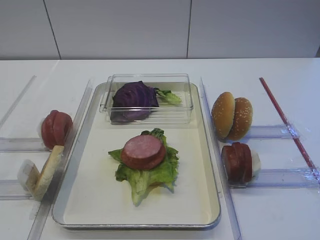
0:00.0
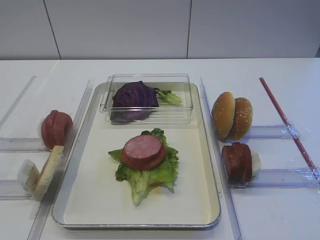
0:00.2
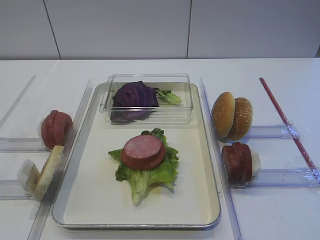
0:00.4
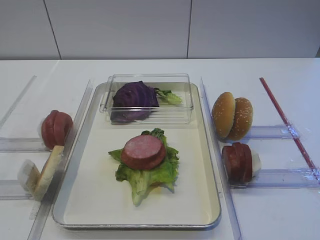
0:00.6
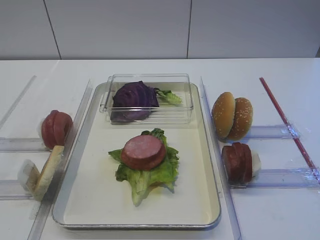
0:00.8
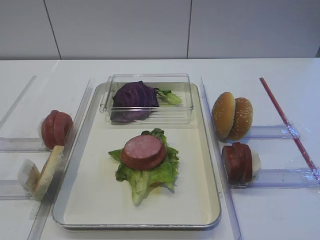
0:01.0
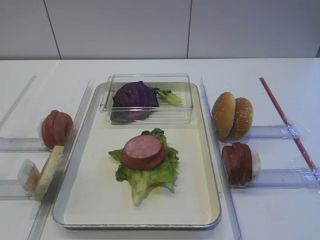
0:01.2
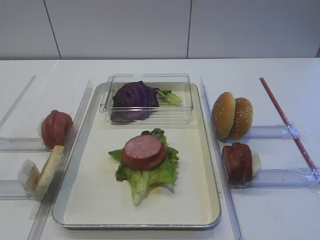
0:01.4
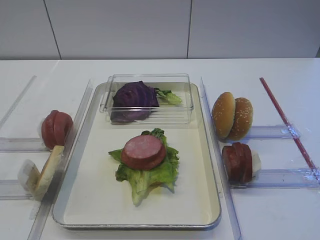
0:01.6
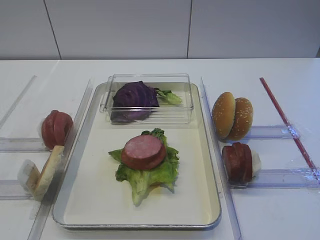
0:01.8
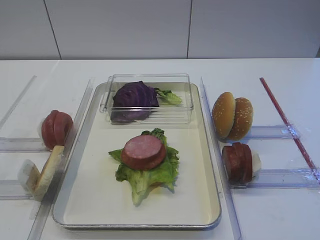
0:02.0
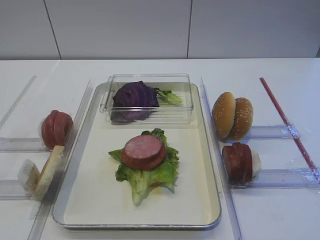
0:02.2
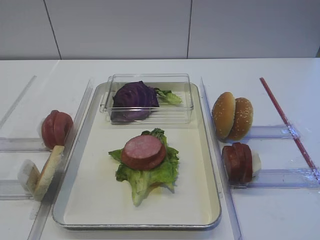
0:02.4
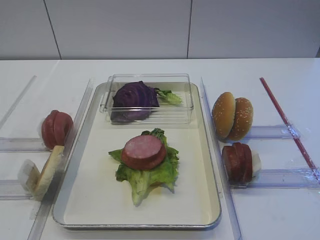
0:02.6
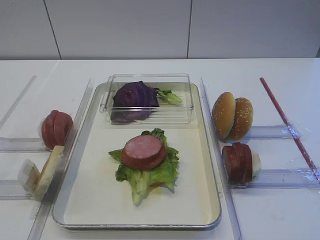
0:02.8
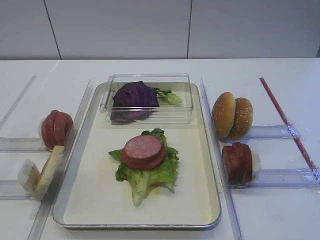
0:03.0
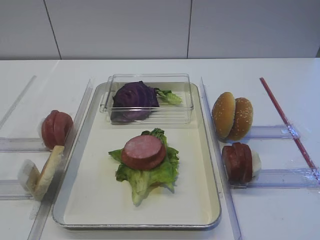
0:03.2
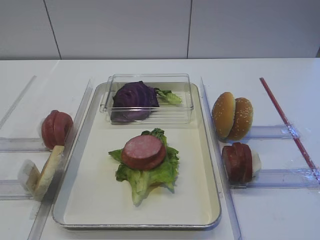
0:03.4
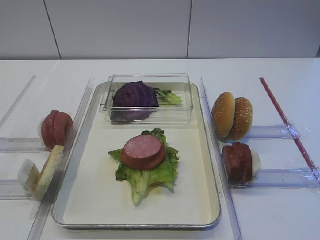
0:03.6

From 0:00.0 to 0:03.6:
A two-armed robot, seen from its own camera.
From 0:00.0 to 0:03.6: Both grippers stay put.

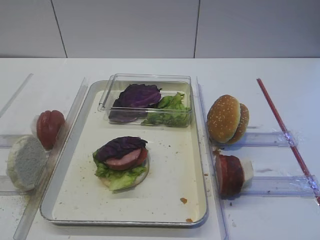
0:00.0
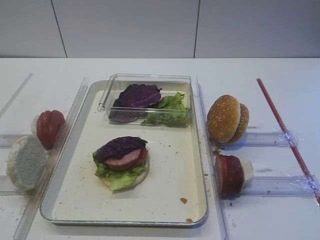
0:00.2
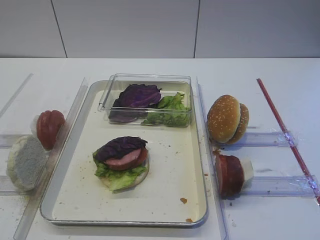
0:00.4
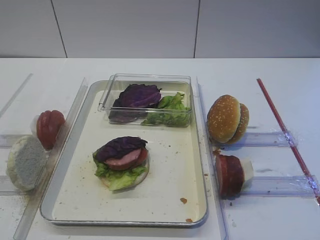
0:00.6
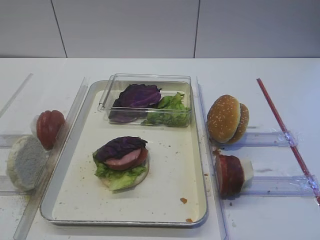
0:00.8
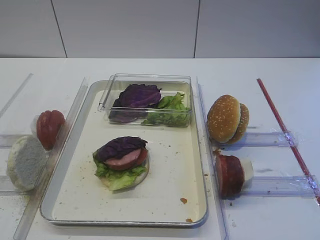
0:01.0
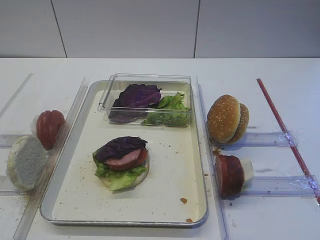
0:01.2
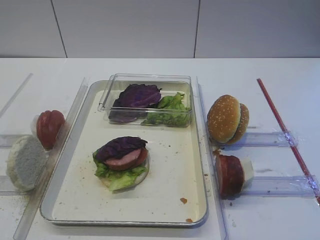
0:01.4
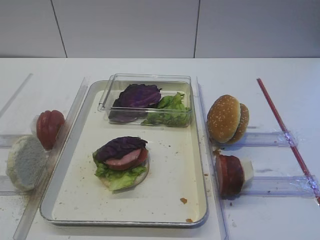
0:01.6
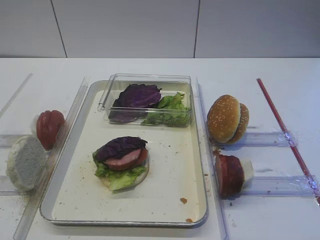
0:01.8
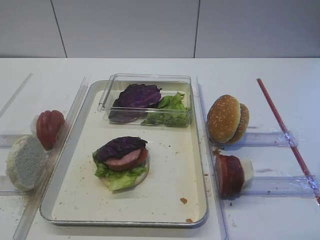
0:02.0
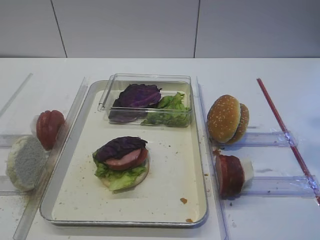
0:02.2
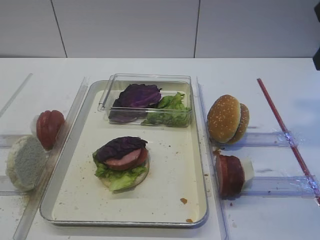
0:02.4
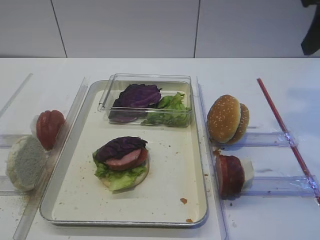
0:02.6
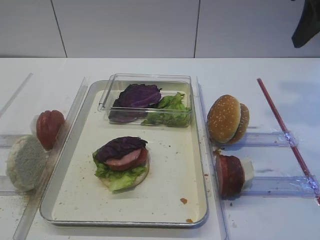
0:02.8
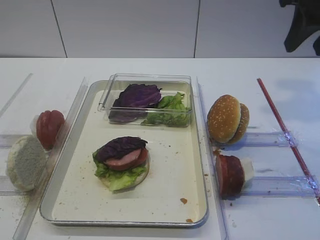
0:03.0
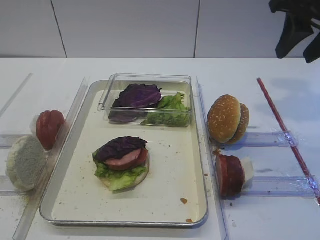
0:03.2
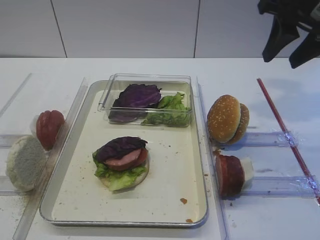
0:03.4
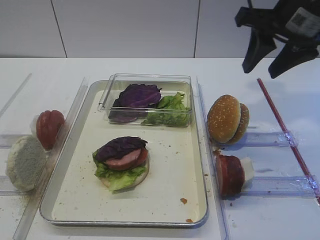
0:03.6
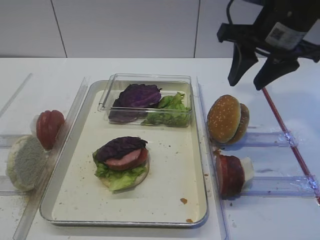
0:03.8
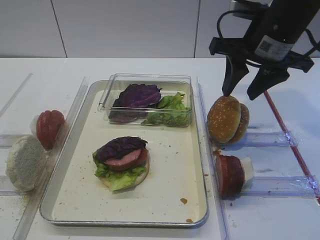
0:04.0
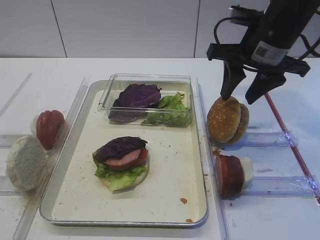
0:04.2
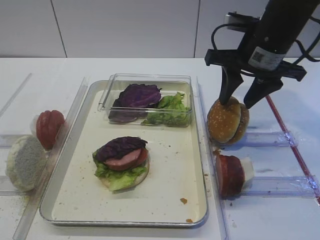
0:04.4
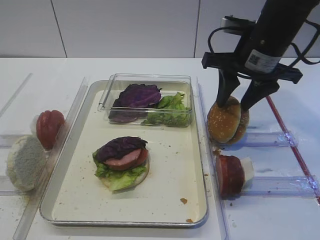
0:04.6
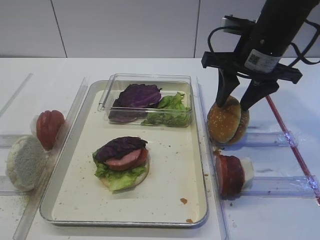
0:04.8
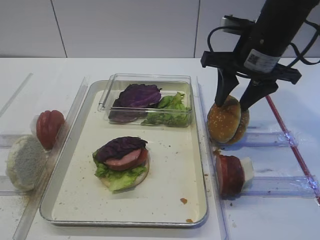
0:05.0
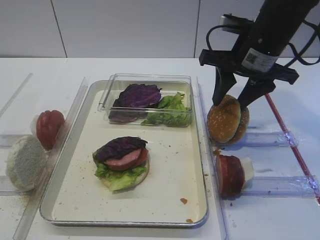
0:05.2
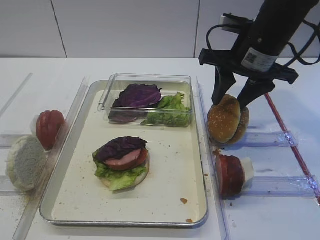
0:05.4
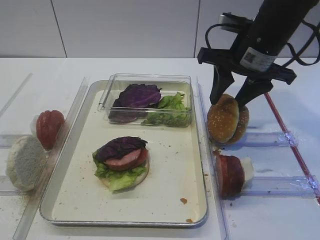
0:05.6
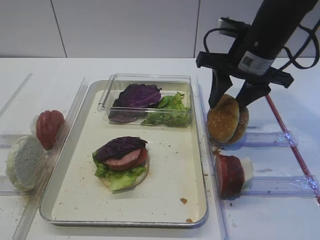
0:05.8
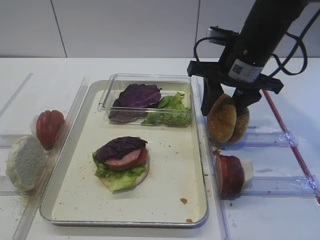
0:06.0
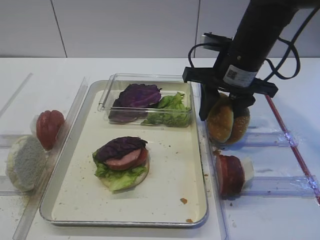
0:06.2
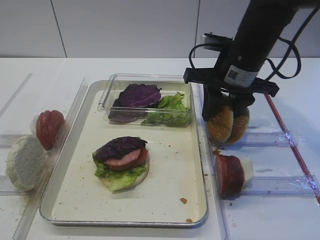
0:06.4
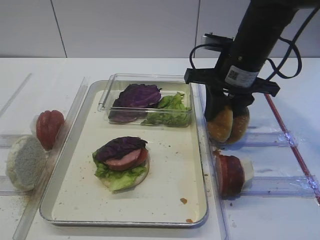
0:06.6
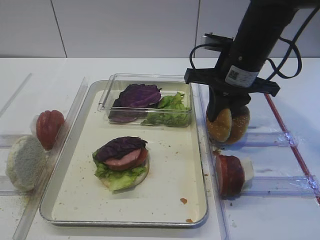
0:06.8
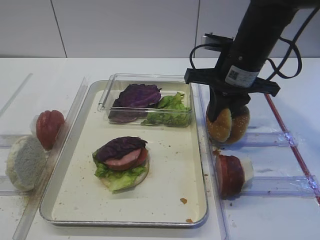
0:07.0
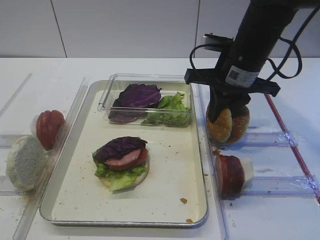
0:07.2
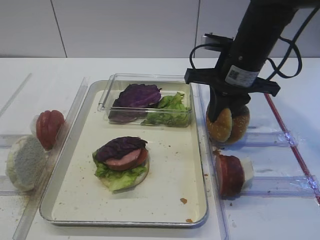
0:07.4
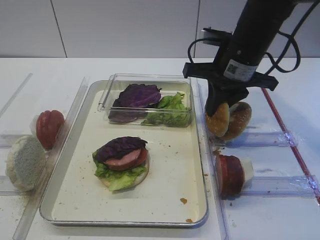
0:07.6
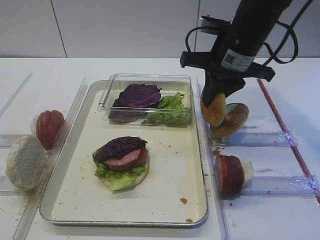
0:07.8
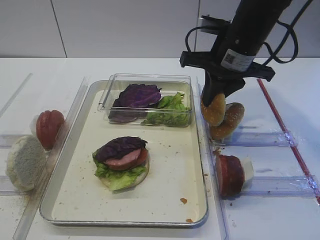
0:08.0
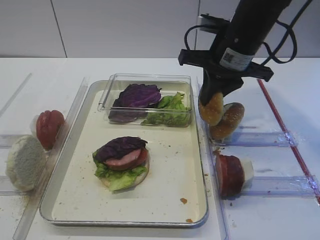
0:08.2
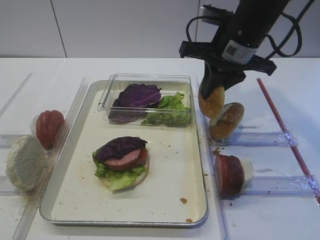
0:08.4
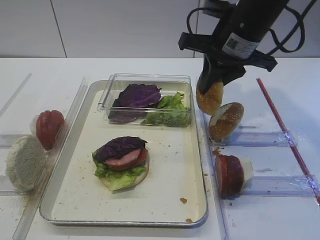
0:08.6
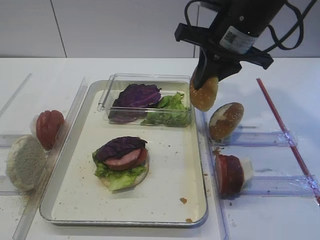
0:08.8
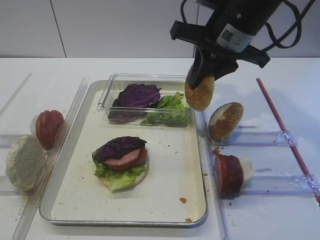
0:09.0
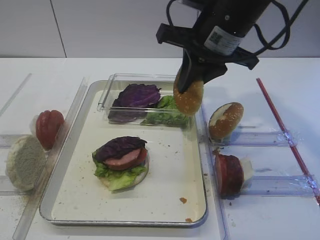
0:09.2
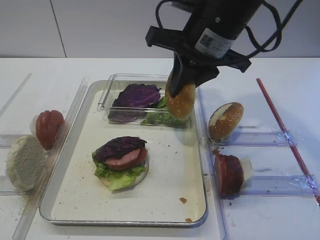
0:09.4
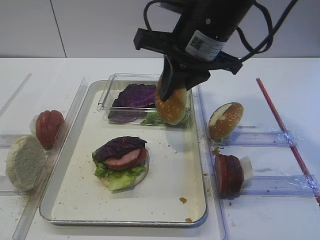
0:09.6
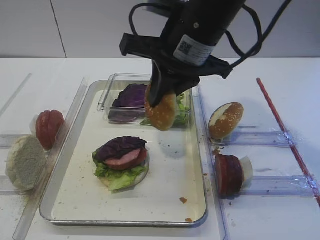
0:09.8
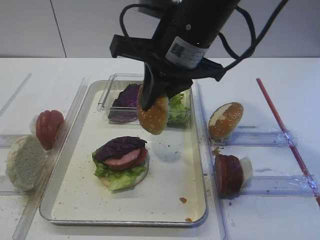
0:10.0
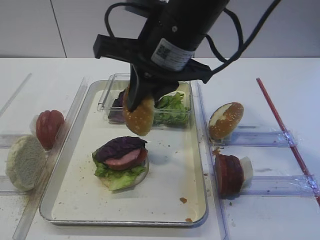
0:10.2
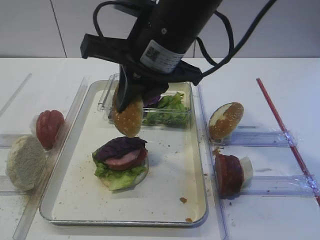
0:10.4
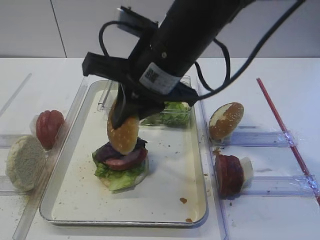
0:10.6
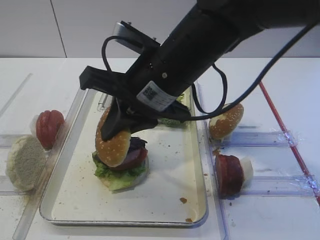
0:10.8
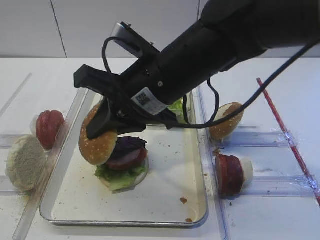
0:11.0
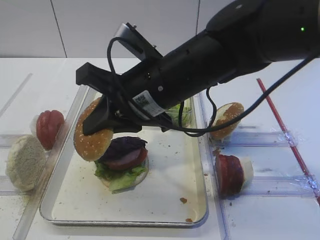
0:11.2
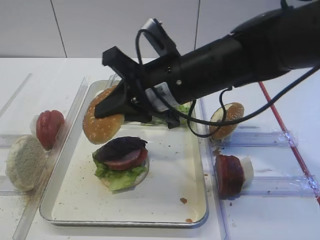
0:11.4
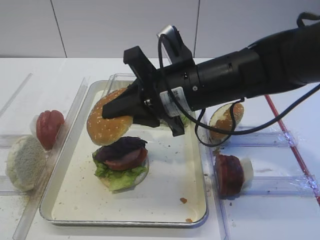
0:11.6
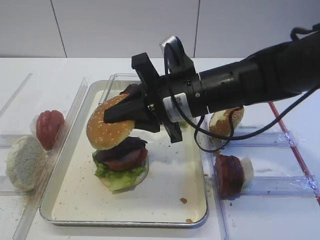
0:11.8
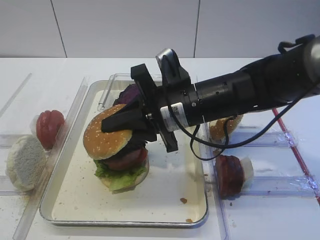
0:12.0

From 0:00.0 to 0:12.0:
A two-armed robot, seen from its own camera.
Step, from 0:00.0 to 0:08.2: Pick up the hamburger lid with the right gripper.
From 0:01.6 to 0:03.0: The right gripper travels forward by roughly 25 cm.
From 0:03.0 to 0:04.4: The right gripper is displaced downward and to the left by roughly 10 cm.
From 0:04.4 to 0:06.0: The grippers move only a little.
From 0:06.0 to 0:07.6: The right gripper closes its fingers.
From 0:07.6 to 0:09.0: The right gripper moves upward, some 5 cm.
From 0:09.0 to 0:10.4: The right gripper heads to the left and backward, covering some 10 cm.
From 0:10.4 to 0:12.0: The right gripper moves downward, some 10 cm.

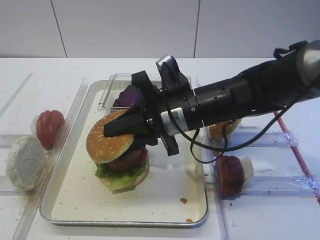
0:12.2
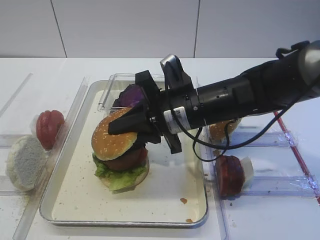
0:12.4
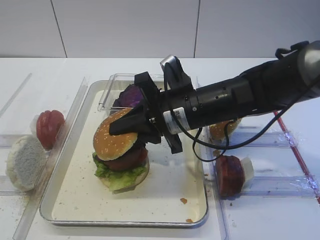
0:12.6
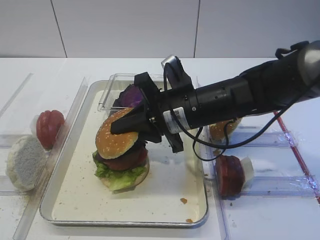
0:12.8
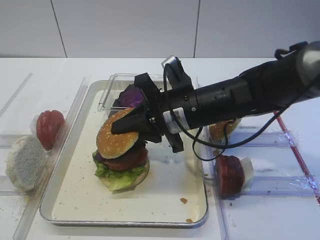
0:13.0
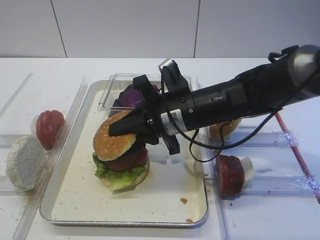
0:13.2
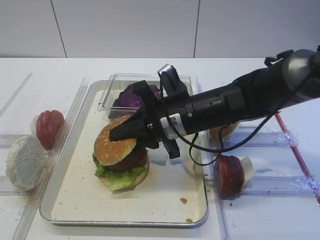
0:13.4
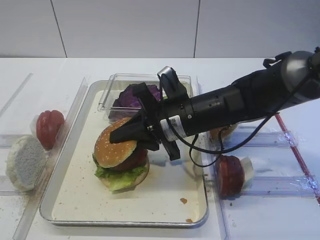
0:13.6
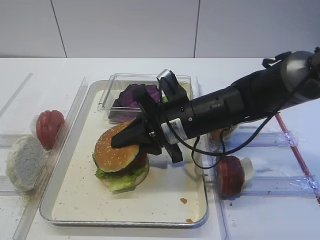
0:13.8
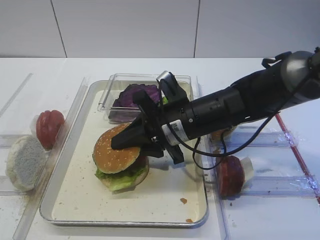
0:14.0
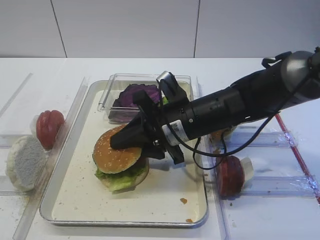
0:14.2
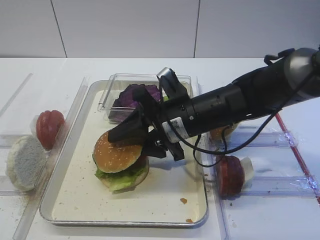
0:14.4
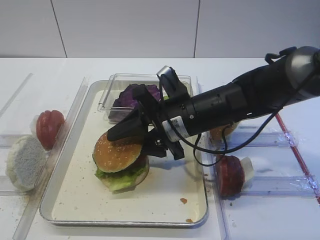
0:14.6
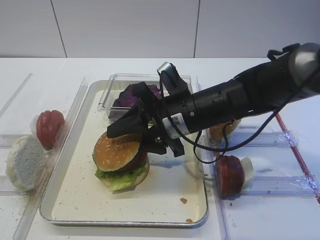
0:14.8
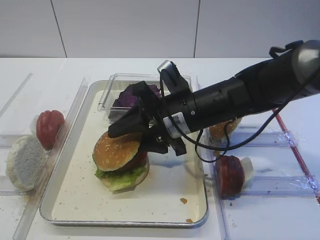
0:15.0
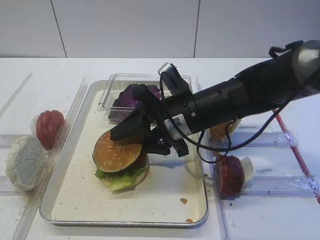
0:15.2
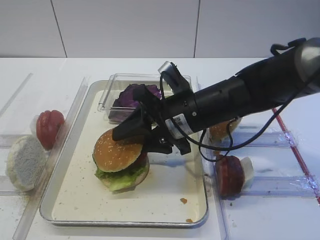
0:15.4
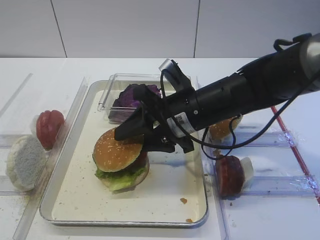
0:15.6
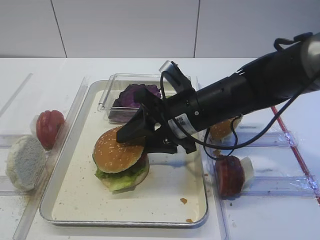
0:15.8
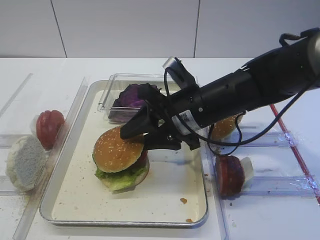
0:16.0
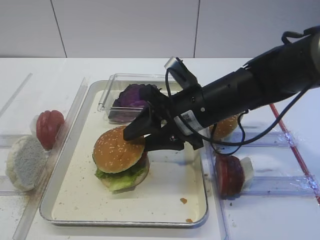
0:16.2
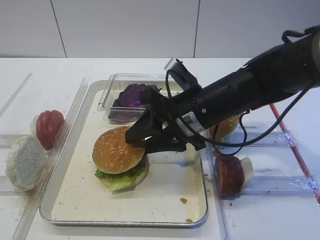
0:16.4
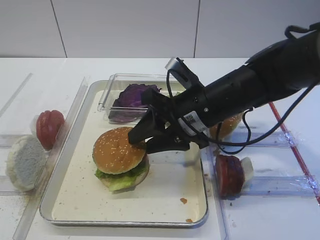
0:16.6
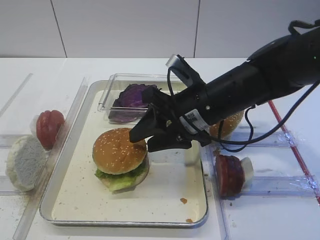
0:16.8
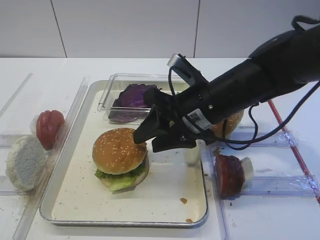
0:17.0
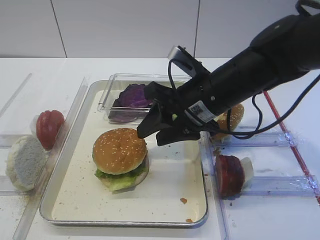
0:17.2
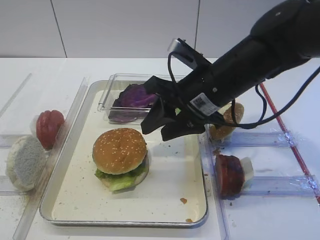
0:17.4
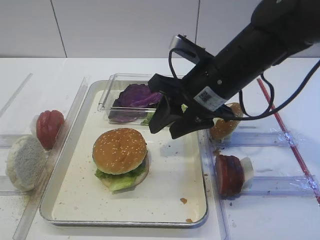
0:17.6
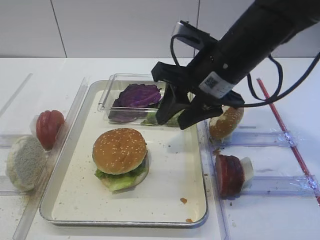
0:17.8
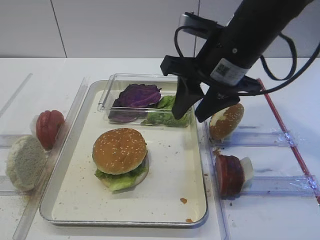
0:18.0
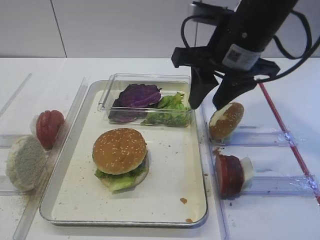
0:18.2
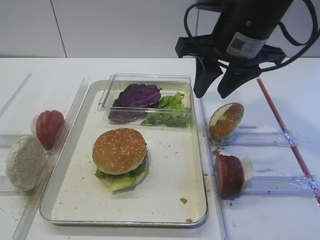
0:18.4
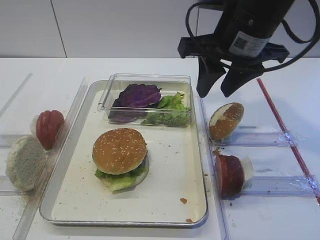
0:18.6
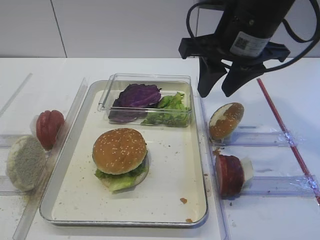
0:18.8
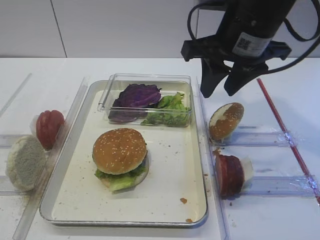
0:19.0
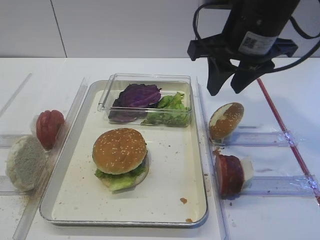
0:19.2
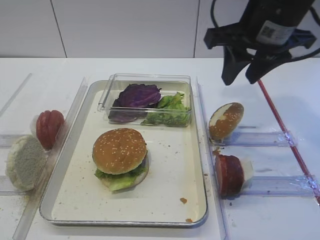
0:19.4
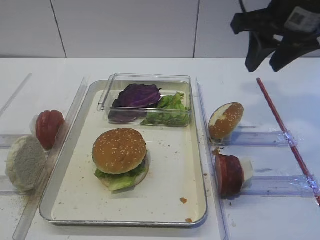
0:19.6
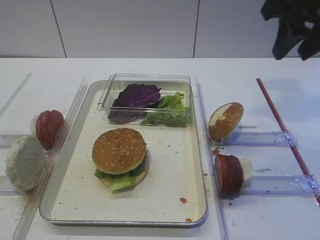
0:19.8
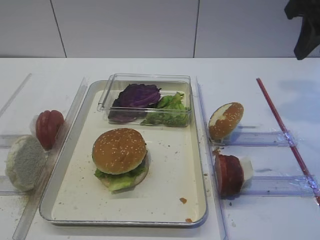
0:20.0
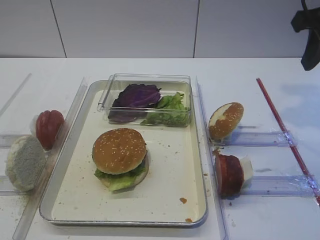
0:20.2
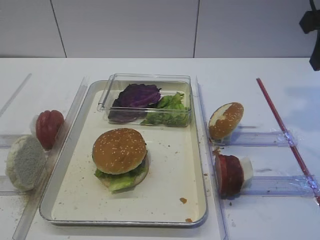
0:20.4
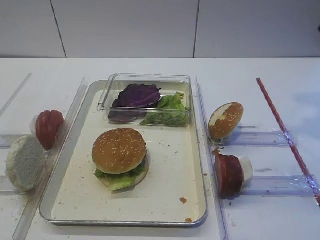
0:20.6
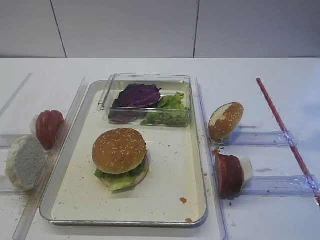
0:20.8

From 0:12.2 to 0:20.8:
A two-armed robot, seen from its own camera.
Step, from 0:12.2 to 0:17.4: Place the hamburger lid on the purple cabbage with the right gripper.
From 0:12.2 to 0:13.6: The grippers make only small movements.
From 0:13.6 to 0:15.0: The right gripper opens.
From 0:15.0 to 0:16.6: The grippers stay close to where they were, moving slightly.
From 0:16.6 to 0:18.0: The right gripper travels upward by roughly 10 cm.
From 0:18.0 to 0:19.4: The right gripper travels to the right by some 5 cm.
From 0:19.4 to 0:20.8: The right gripper shifts about 15 cm to the right and backward.
